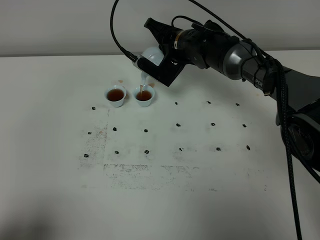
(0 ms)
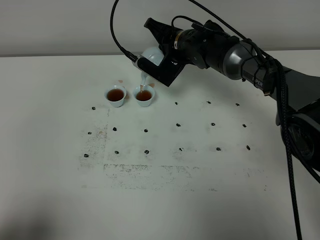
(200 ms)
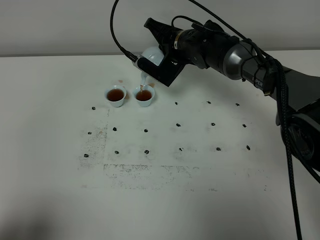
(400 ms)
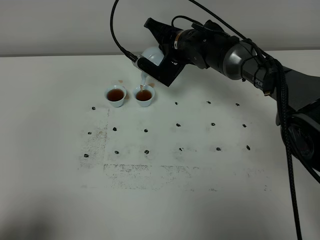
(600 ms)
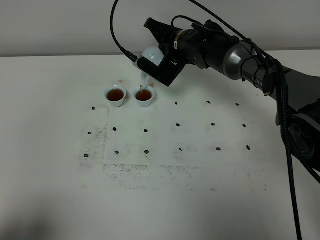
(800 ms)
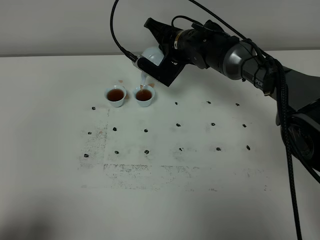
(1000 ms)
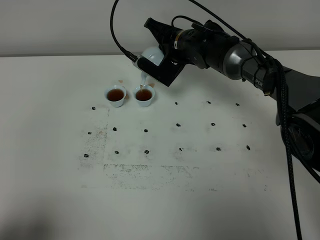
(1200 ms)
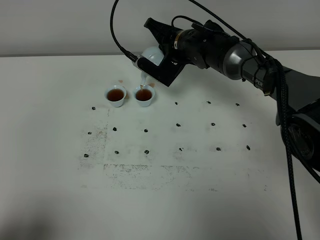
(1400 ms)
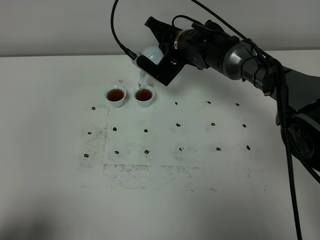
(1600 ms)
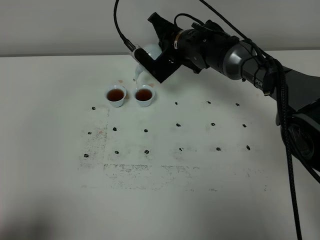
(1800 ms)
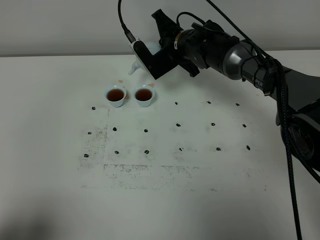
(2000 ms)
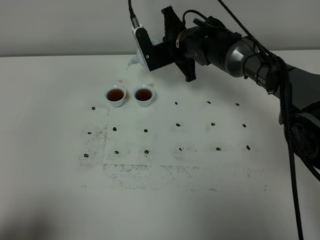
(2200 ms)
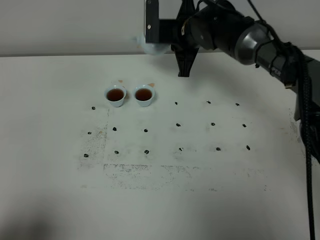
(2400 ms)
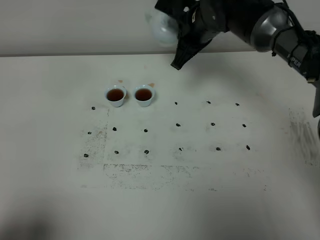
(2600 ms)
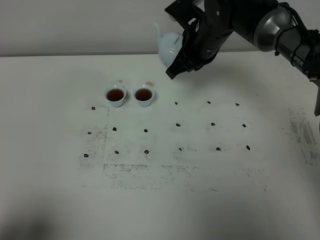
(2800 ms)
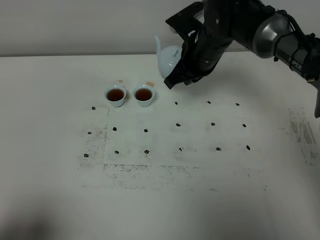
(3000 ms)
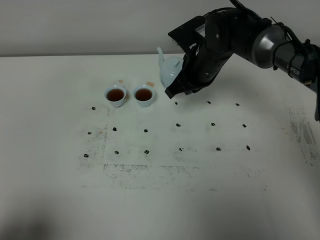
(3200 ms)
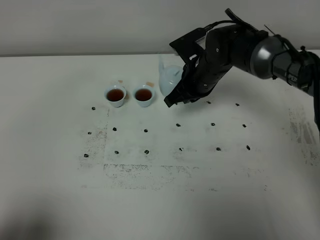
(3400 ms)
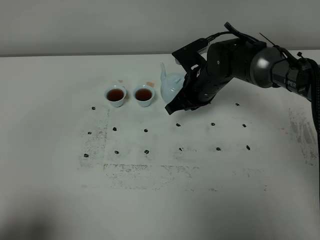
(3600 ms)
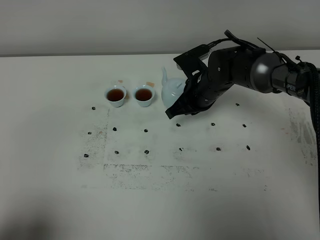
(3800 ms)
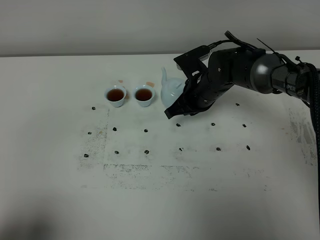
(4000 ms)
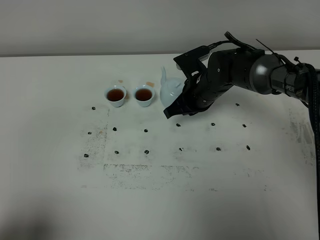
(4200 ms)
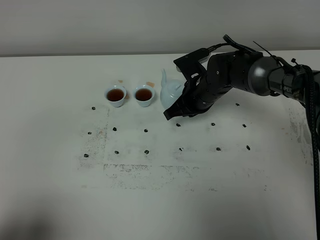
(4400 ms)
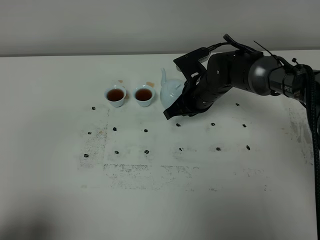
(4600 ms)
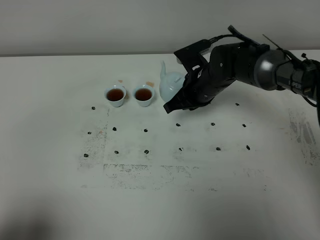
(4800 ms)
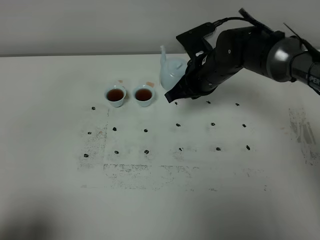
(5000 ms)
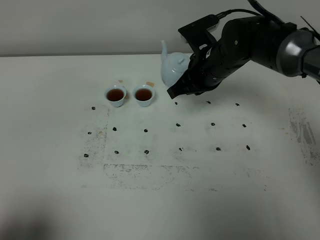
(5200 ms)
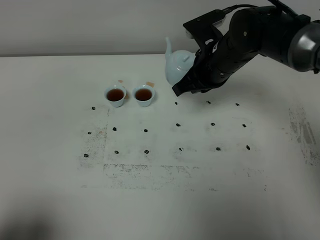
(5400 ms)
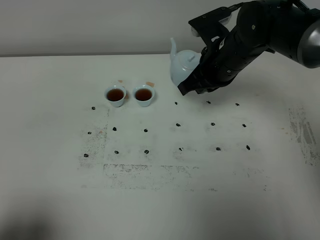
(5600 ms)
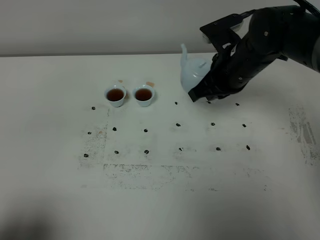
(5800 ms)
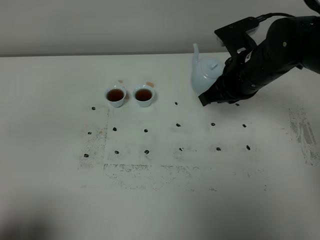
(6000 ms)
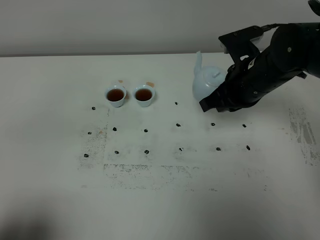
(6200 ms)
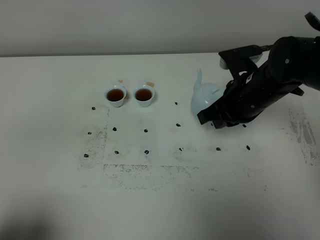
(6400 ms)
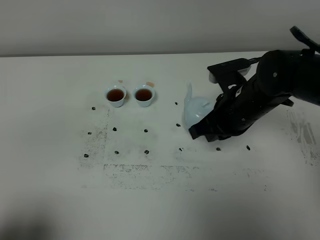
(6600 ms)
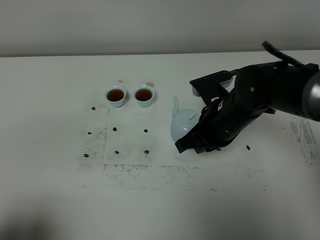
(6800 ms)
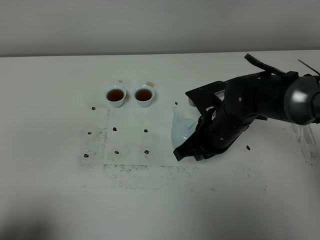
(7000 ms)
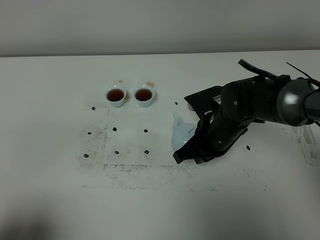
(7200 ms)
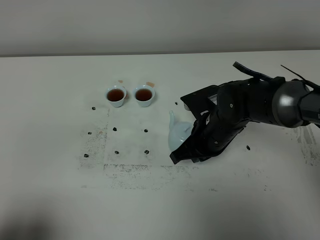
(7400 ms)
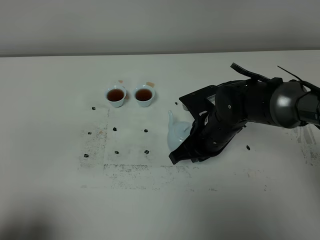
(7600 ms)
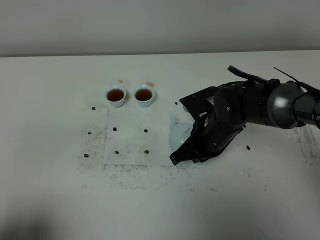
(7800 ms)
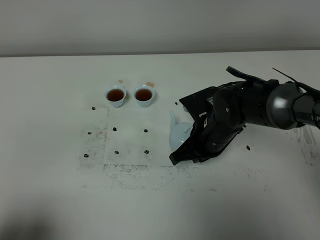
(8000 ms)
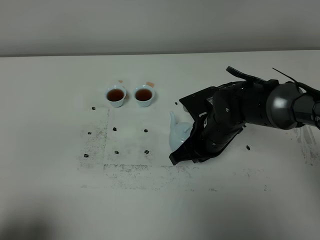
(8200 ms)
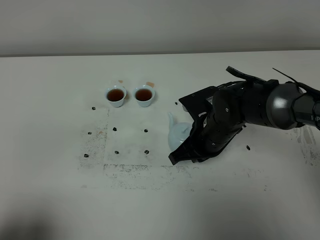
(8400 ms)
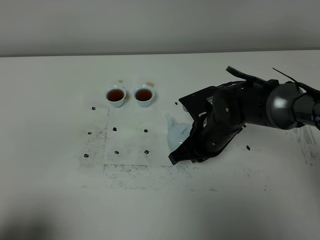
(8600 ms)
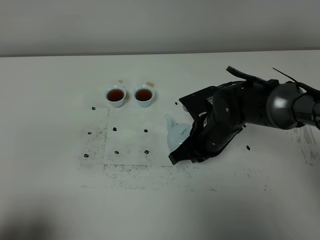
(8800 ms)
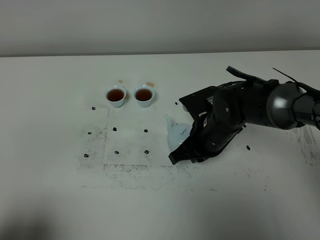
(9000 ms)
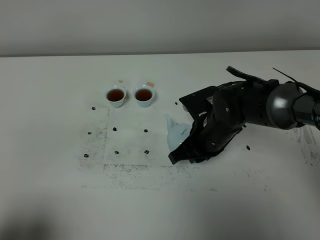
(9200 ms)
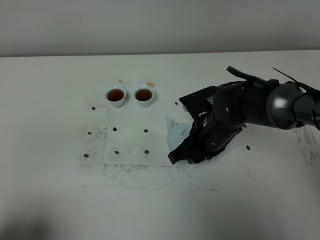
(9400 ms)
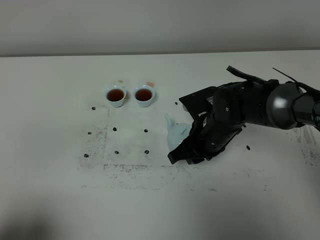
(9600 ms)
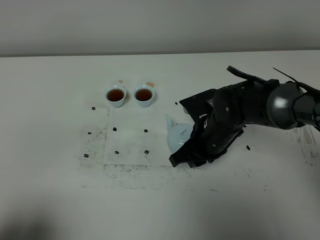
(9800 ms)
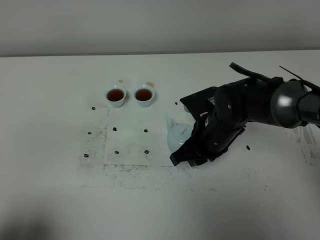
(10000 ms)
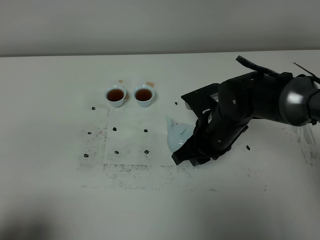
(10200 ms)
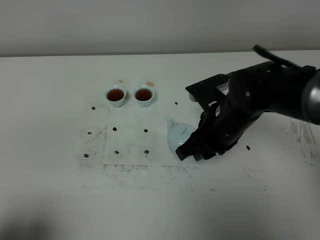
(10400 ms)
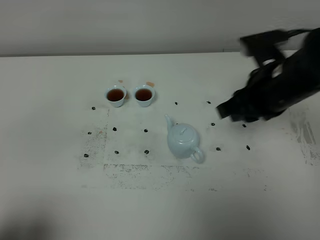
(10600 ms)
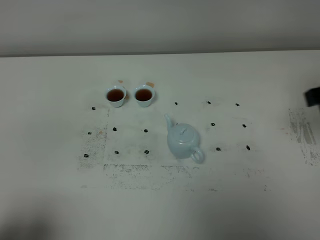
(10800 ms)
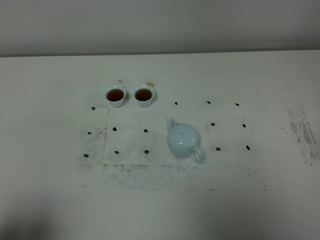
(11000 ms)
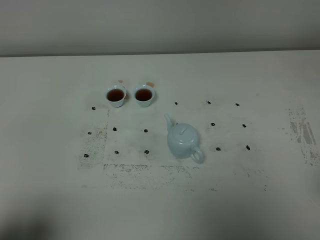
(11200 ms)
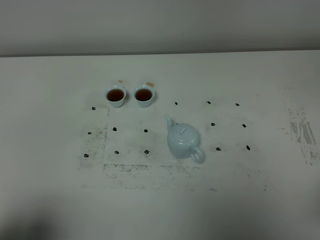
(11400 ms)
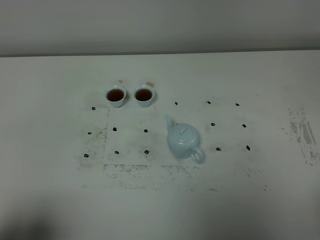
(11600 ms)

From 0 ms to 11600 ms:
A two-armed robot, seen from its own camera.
Task of the whole recording: grasp the blue porcelain teapot and pour the tea into the two blue porcelain teacups one by one, put the blue porcelain teapot back in its original place.
From 0 ms to 1400 ms: Both grippers stay put.
From 1400 ms to 2800 ms: The right gripper travels upward and backward by some 10 cm.
From 2800 ms to 4400 ms: The right gripper travels downward by approximately 10 cm.
From 4400 ms to 5800 ms: The right gripper shifts some 10 cm upward and backward.
From 5800 ms to 7200 ms: The right gripper goes about 10 cm downward and backward.
From 7200 ms to 8800 ms: Neither gripper changes place.
From 8800 ms to 10200 ms: There are only small adjustments of the grippers.
From 10200 ms to 11600 ms: The right gripper heads backward, to the right and upward, covering some 35 cm.

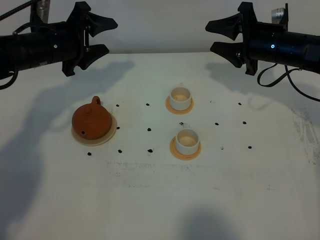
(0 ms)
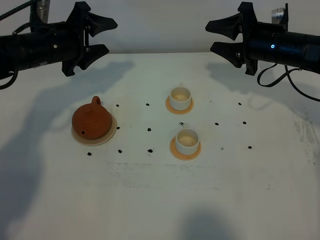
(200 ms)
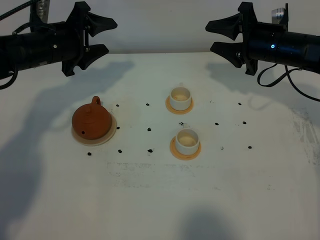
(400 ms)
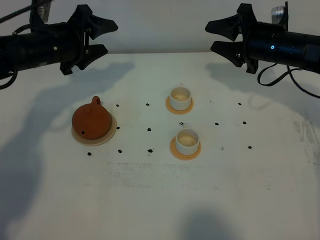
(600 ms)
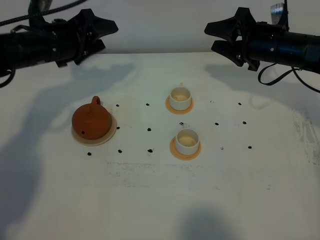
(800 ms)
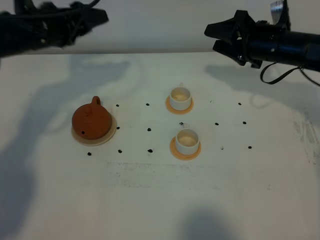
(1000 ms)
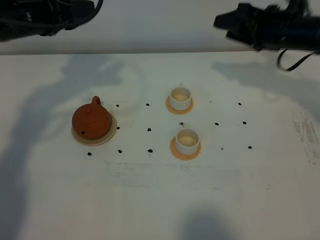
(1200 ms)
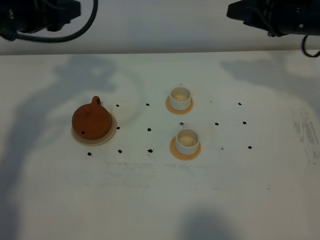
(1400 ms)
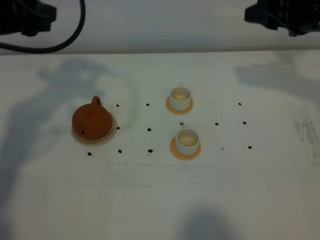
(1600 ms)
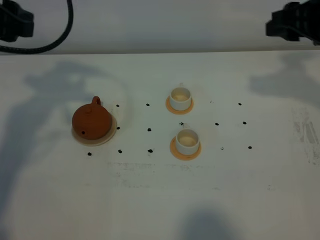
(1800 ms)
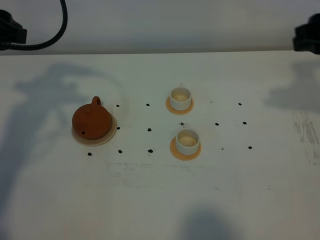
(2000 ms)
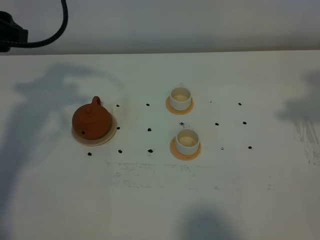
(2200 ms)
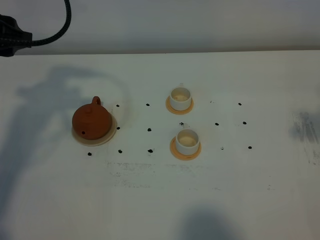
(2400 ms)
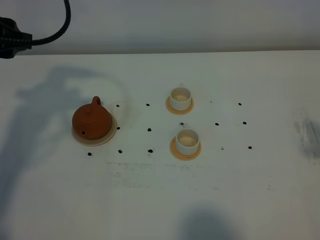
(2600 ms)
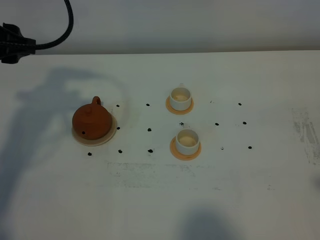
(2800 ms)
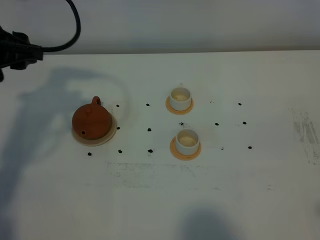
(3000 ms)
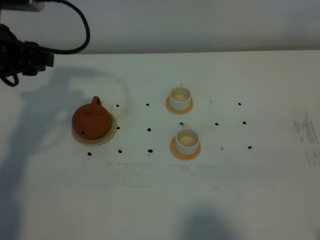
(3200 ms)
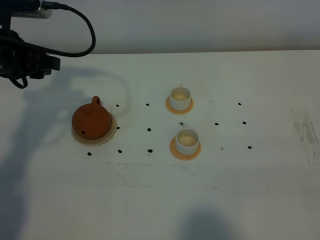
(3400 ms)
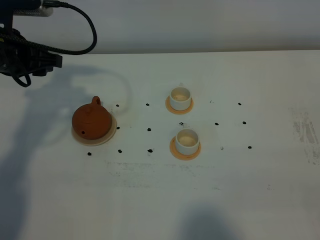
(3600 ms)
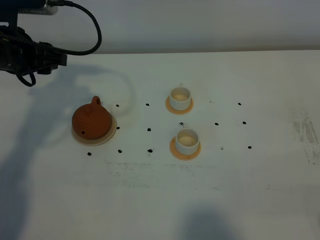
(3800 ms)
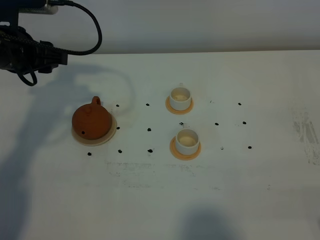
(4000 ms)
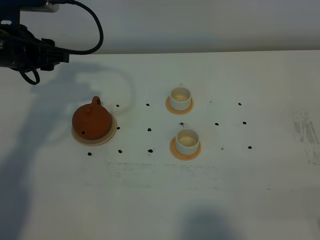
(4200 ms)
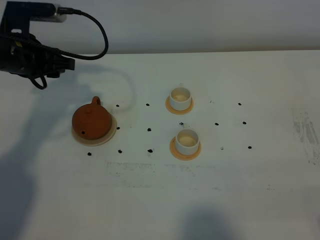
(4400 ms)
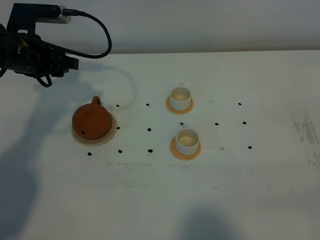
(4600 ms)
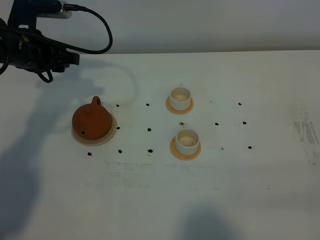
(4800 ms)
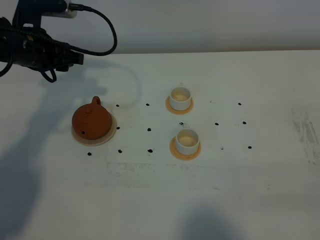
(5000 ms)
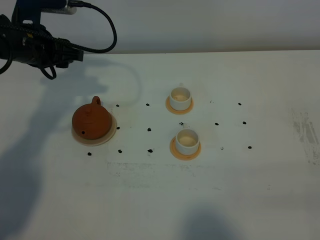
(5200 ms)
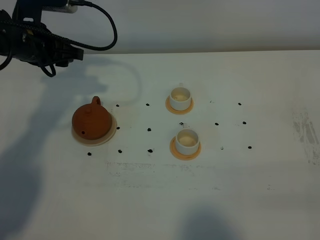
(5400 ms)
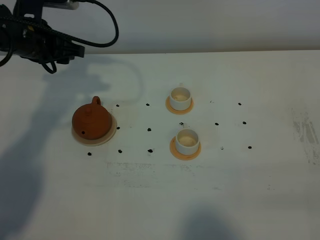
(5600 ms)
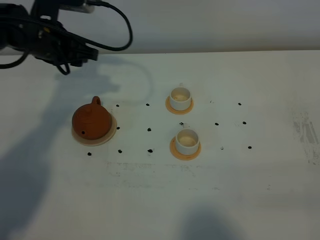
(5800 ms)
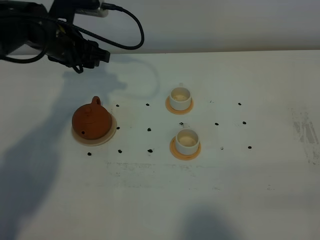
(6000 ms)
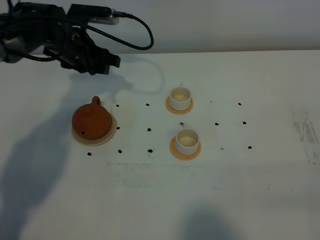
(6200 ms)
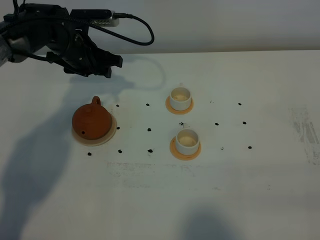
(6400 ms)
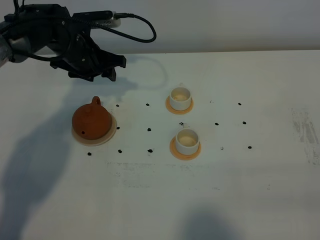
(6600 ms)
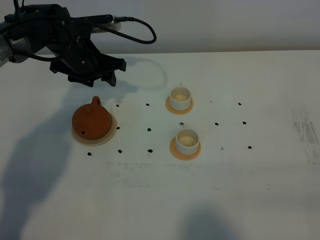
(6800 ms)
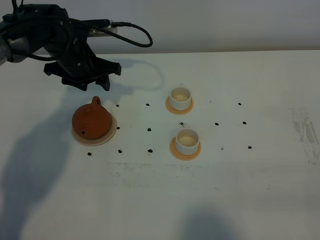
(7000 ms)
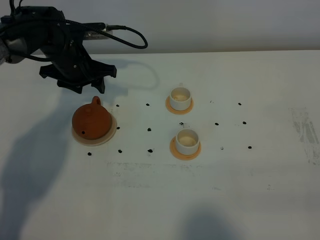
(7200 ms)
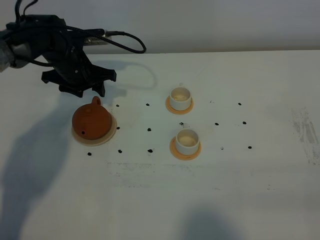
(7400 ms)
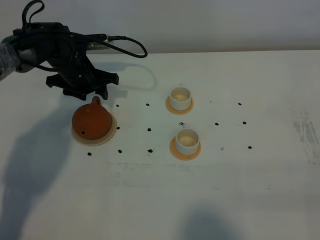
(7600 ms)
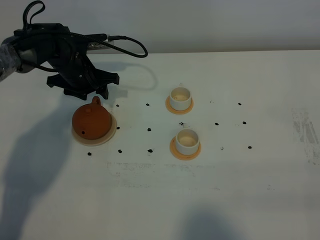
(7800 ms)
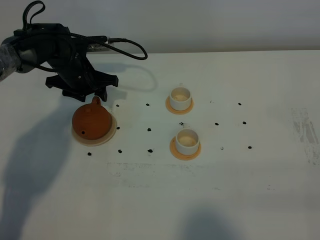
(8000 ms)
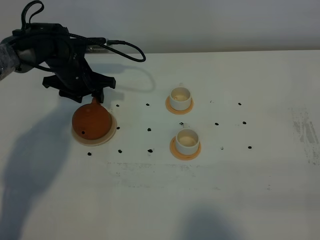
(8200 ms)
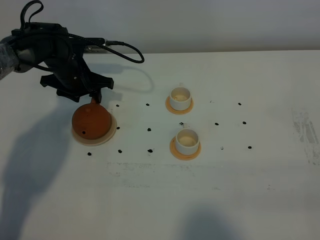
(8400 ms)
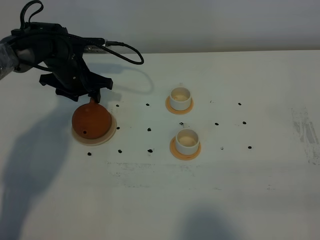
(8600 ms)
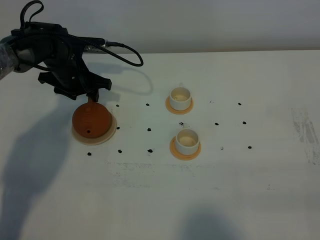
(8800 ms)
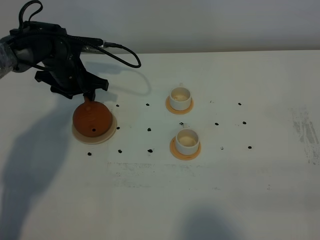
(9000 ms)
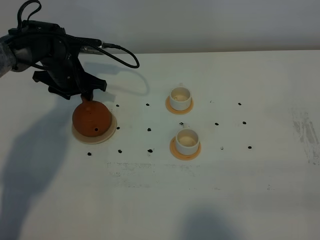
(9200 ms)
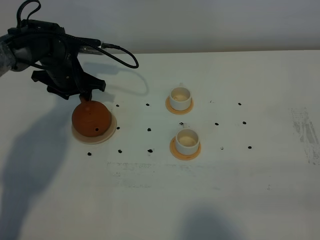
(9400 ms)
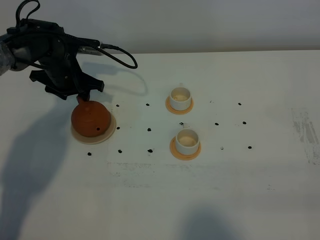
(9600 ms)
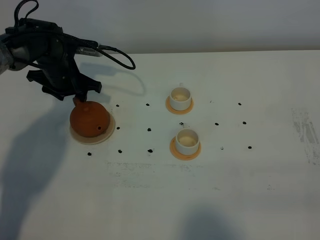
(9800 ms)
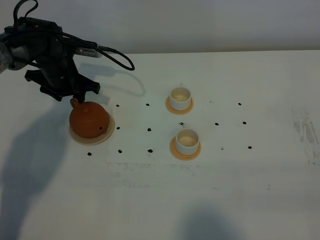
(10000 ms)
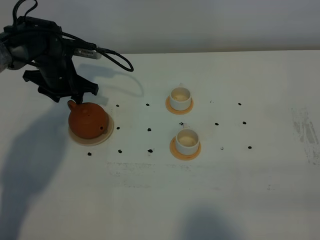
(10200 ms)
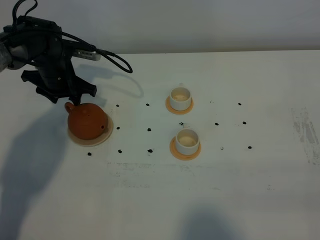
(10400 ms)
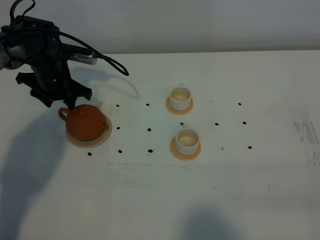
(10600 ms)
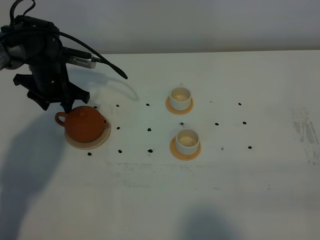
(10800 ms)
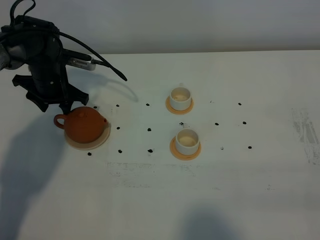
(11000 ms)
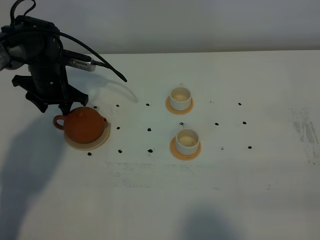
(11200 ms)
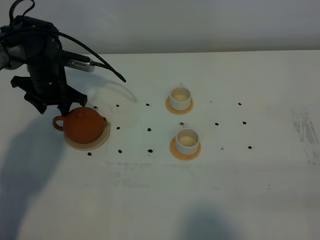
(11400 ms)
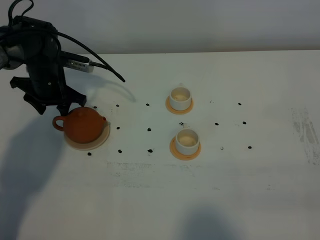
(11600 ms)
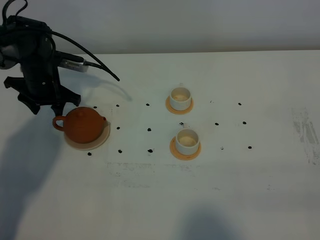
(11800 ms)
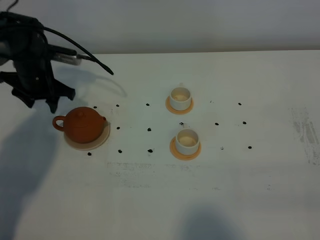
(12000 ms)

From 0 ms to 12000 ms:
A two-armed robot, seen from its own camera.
Task of the whole recording: grasp the brown teapot and pour the tea into the two white teacups one by one, put the brown teapot back in its original place.
From 0 ms to 1600 ms: Both grippers move upward and backward, roughly 15 cm.
From 1600 ms to 3000 ms: The right gripper heads backward, covering some 35 cm.
From 3000 ms to 4400 ms: The left gripper moves downward and forward, some 10 cm.
From 4400 ms to 6000 ms: The left gripper travels forward and to the right by some 10 cm.
From 6000 ms to 7600 ms: The left gripper travels downward by about 10 cm.
From 7600 ms to 10400 ms: The grippers move only a little.
From 10400 ms to 12000 ms: The grippers move only a little.
